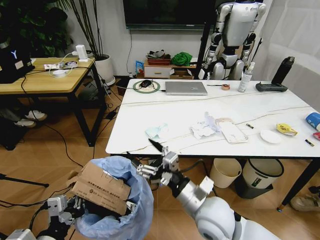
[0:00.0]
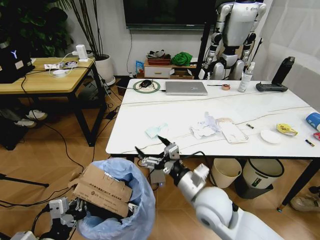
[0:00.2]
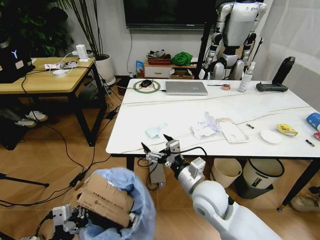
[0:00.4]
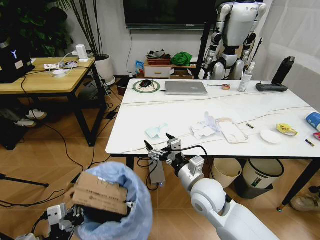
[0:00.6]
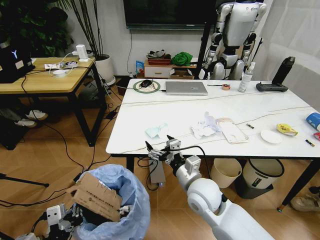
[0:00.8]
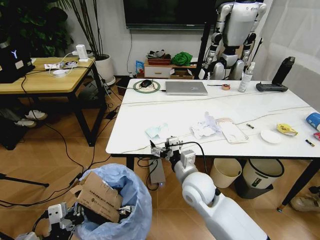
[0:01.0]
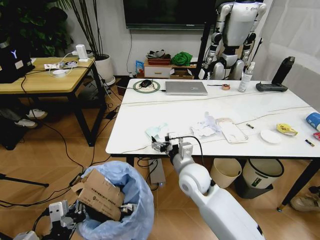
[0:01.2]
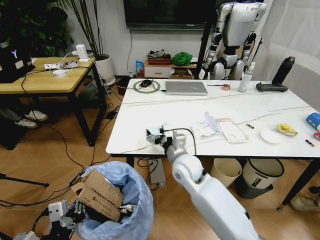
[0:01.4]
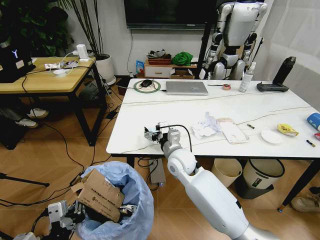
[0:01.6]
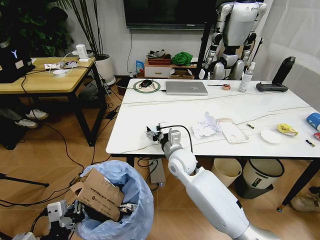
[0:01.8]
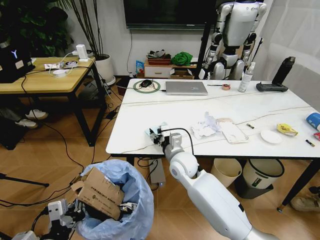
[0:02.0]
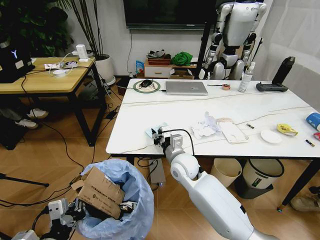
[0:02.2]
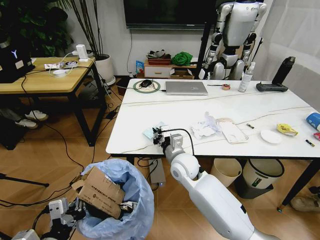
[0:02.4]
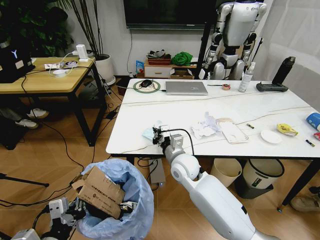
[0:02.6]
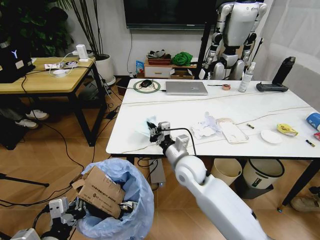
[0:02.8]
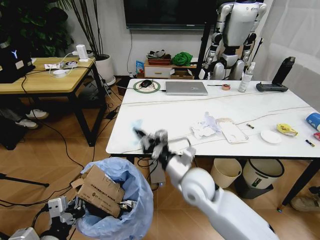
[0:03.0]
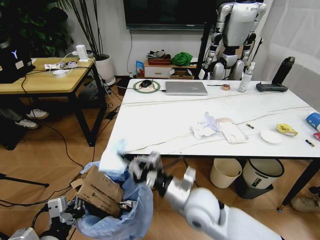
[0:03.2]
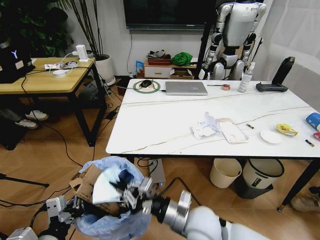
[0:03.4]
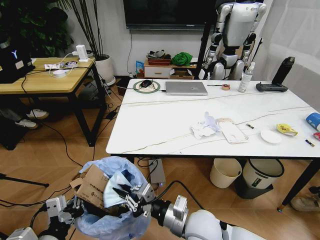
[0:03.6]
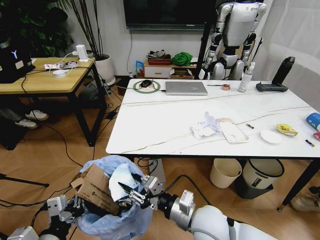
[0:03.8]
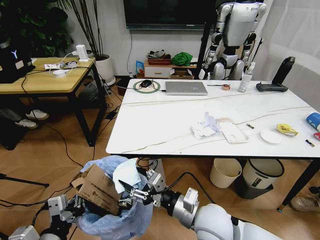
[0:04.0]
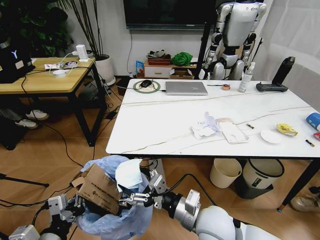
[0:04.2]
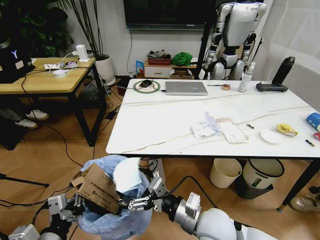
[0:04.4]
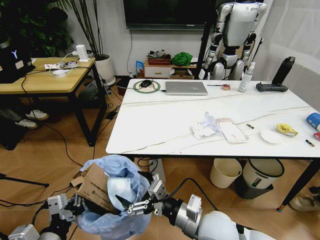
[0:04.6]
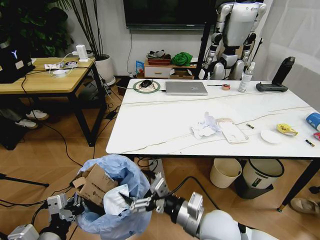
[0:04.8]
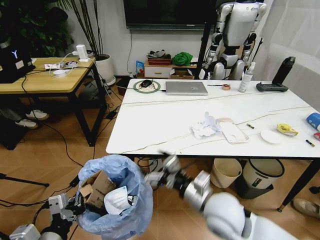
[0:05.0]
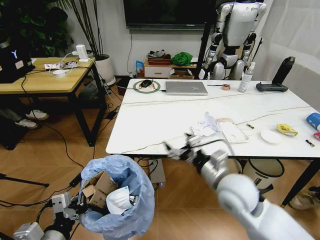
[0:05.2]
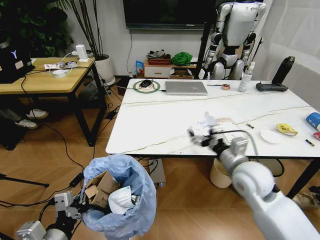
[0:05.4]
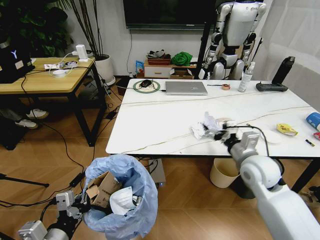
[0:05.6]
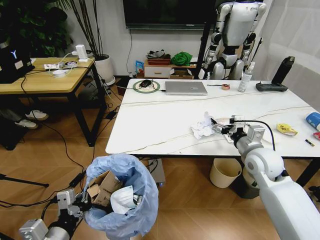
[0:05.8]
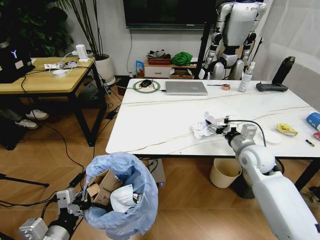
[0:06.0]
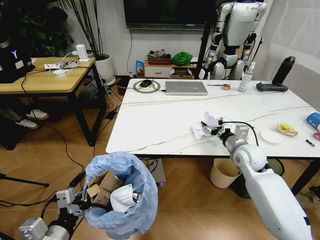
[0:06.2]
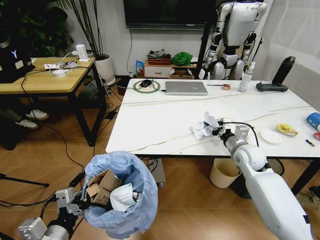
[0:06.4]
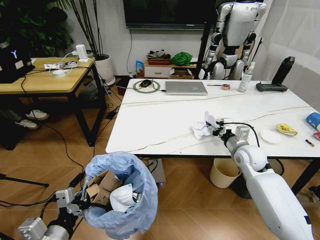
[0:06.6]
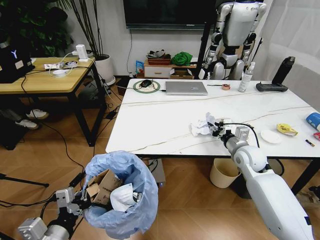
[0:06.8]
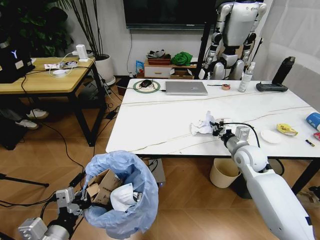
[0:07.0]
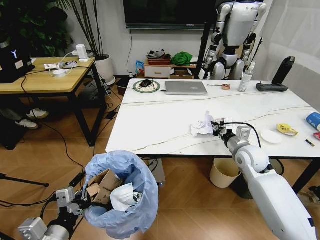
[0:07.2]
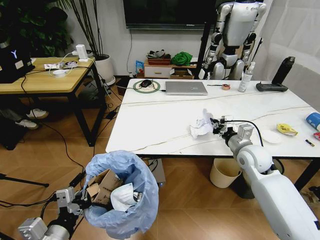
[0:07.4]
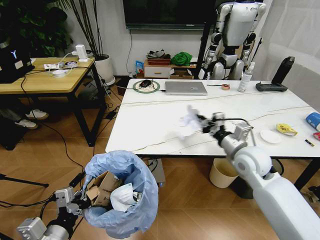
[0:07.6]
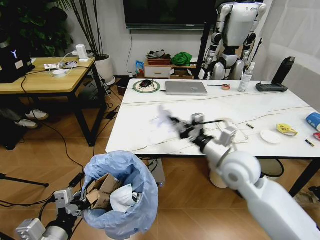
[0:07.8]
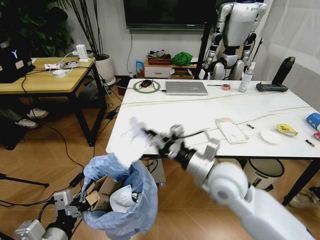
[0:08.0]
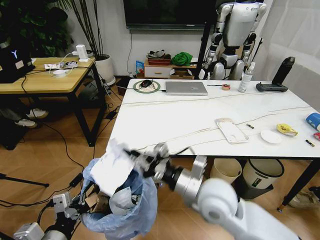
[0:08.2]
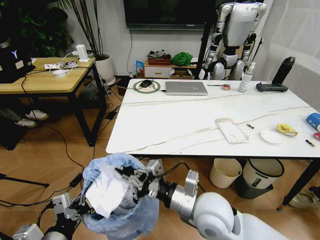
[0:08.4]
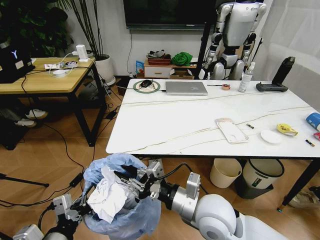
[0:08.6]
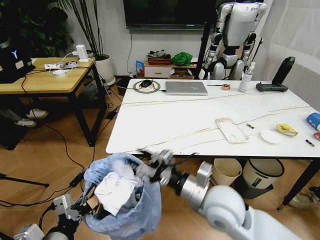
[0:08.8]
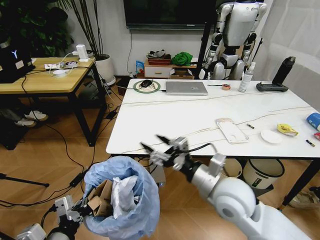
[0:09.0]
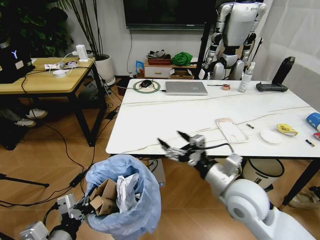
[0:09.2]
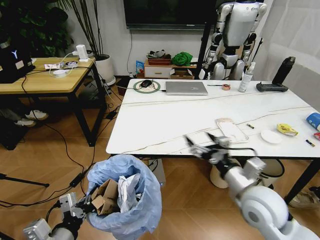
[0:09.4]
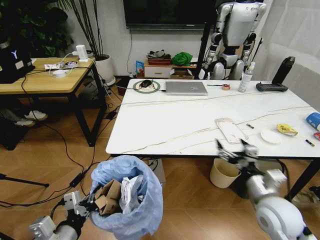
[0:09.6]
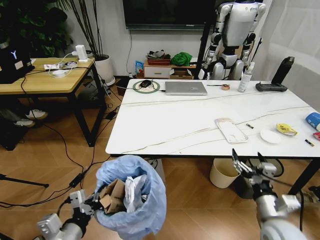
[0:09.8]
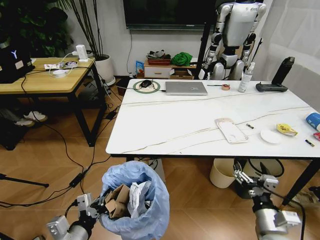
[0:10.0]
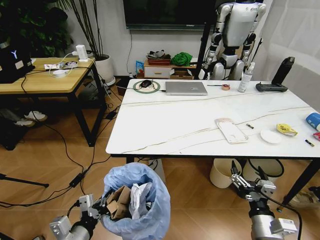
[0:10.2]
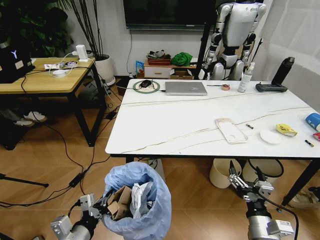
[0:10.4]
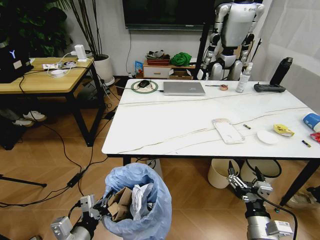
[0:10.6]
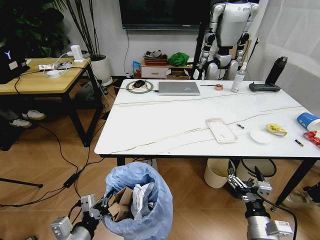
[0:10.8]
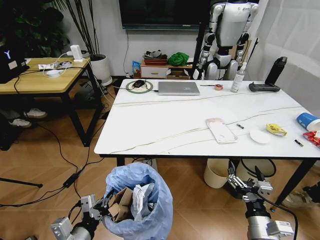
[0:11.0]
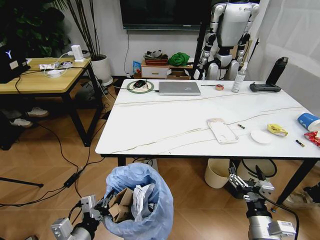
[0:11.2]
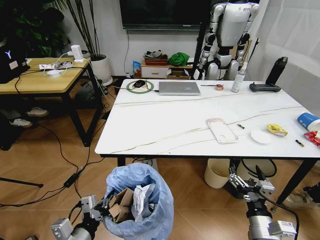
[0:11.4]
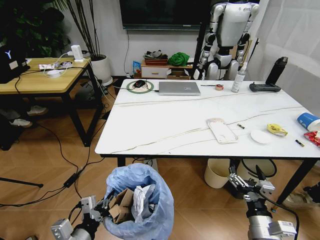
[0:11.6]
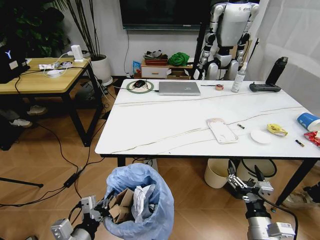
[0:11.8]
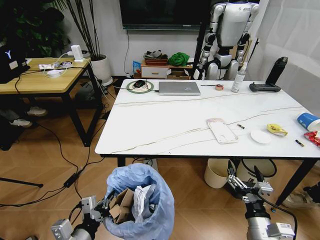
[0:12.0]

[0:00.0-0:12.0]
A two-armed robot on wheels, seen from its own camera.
Task of the whole recording: Pick up the trash bin and place the trash from the table into it.
0:00.0 to 0:01.6: The right gripper is displaced forward by approximately 20 cm.
0:01.6 to 0:03.0: The right gripper is displaced backward by approximately 10 cm, and closes its fingers.
0:03.0 to 0:04.4: The right gripper shifts approximately 10 cm backward, and opens.
0:04.4 to 0:06.0: The right gripper is displaced forward and to the right by approximately 25 cm.
0:06.0 to 0:07.6: The right gripper closes.
0:07.6 to 0:09.0: The right gripper shifts about 15 cm backward and to the left, and opens its fingers.
0:09.0 to 0:10.4: The right gripper goes roughly 20 cm downward, to the right and backward; the left gripper moves downward, about 5 cm.

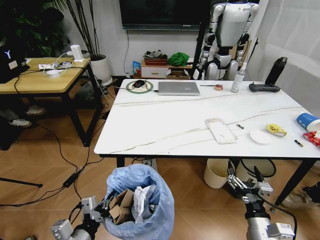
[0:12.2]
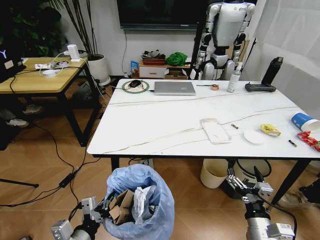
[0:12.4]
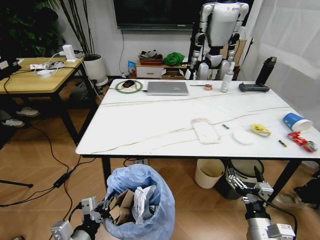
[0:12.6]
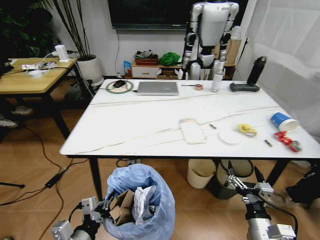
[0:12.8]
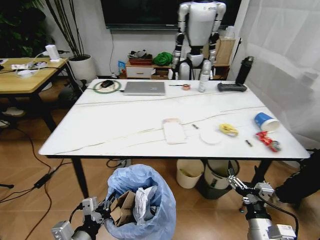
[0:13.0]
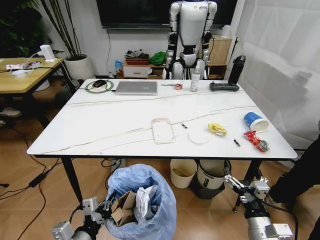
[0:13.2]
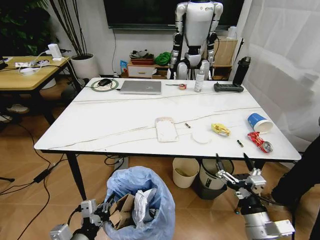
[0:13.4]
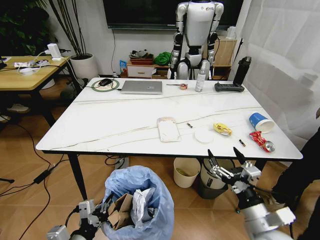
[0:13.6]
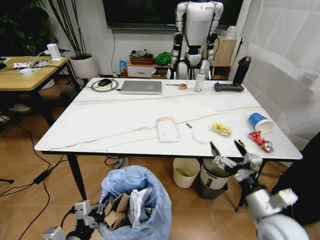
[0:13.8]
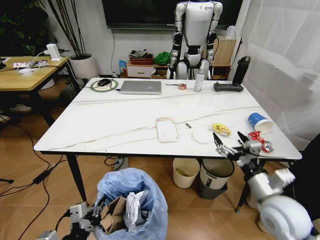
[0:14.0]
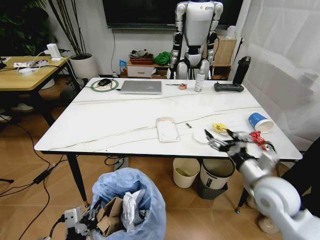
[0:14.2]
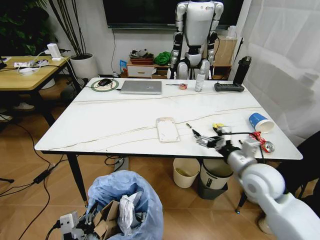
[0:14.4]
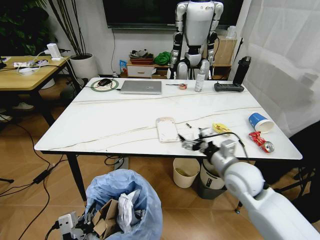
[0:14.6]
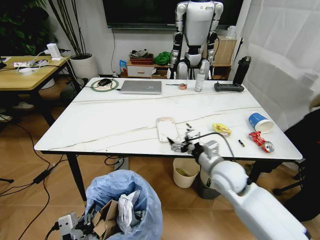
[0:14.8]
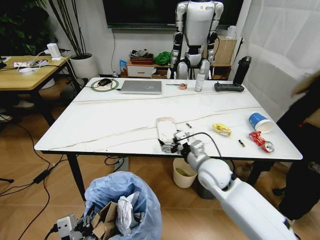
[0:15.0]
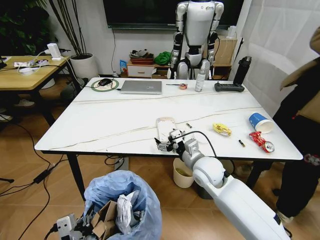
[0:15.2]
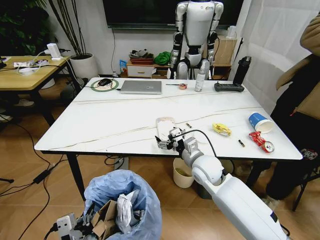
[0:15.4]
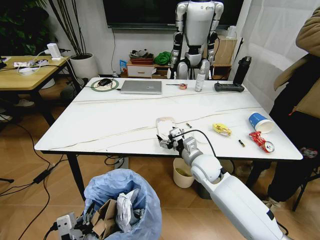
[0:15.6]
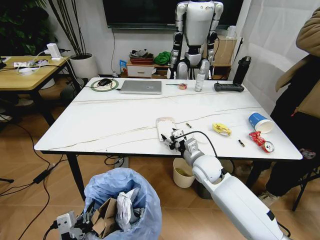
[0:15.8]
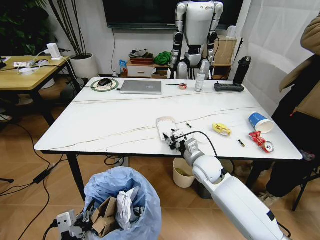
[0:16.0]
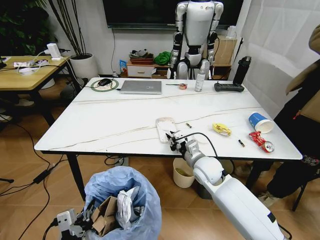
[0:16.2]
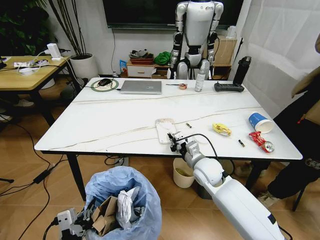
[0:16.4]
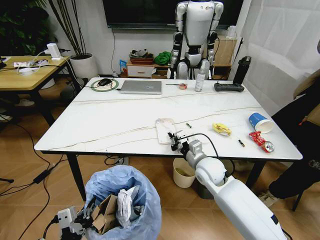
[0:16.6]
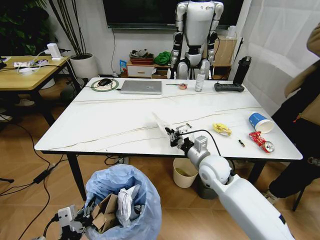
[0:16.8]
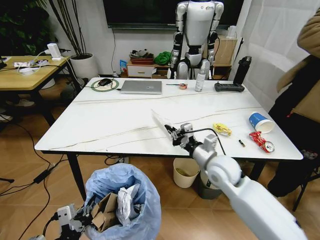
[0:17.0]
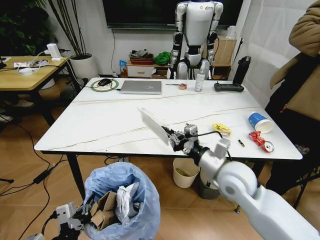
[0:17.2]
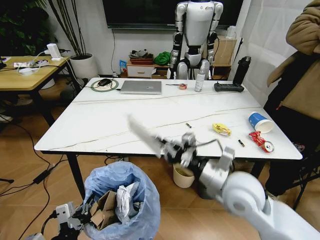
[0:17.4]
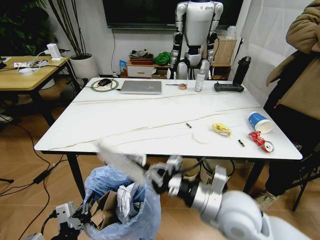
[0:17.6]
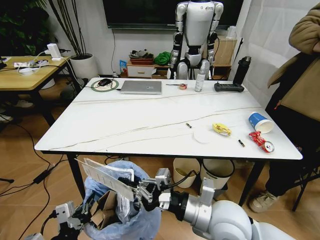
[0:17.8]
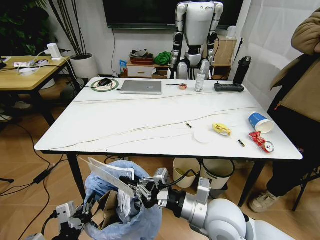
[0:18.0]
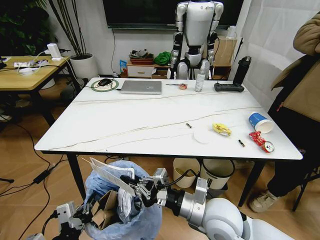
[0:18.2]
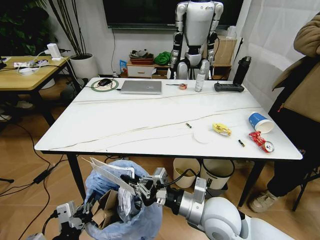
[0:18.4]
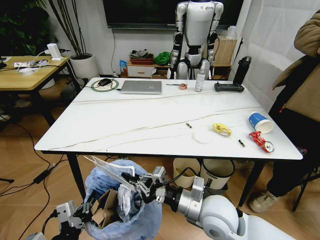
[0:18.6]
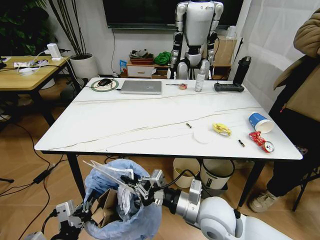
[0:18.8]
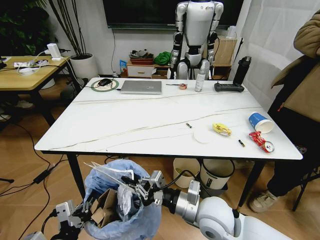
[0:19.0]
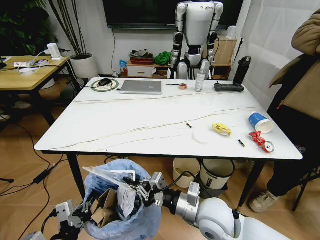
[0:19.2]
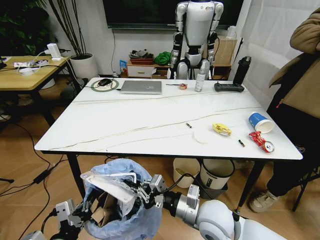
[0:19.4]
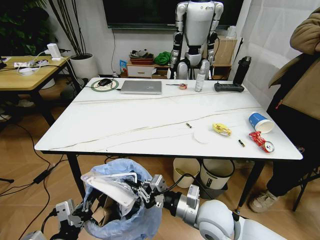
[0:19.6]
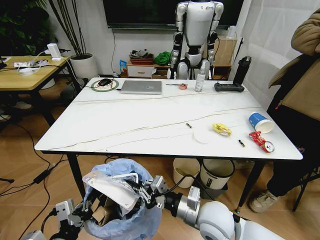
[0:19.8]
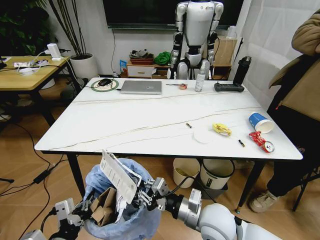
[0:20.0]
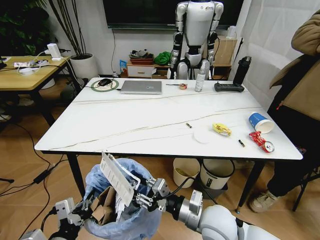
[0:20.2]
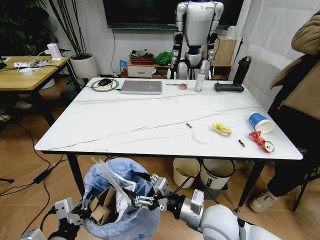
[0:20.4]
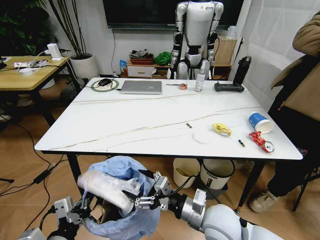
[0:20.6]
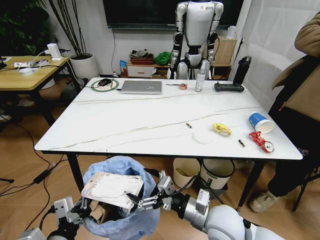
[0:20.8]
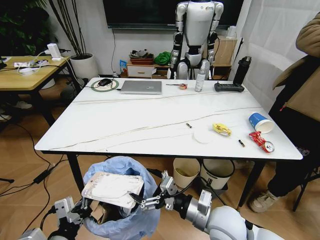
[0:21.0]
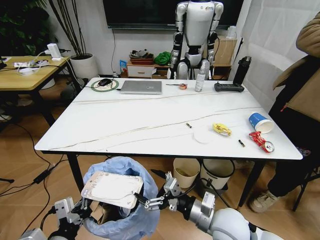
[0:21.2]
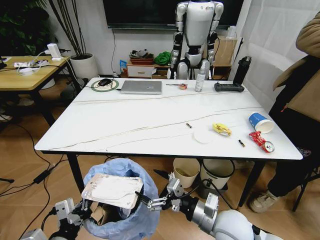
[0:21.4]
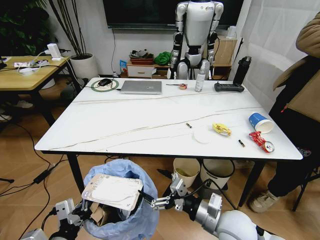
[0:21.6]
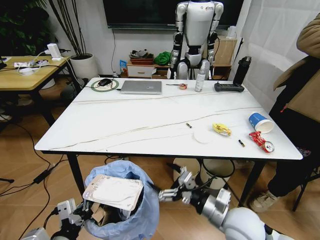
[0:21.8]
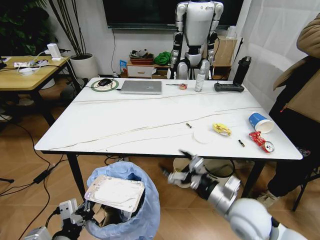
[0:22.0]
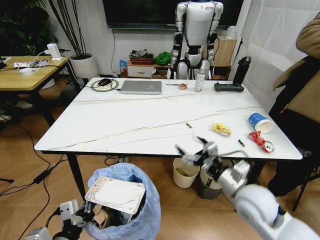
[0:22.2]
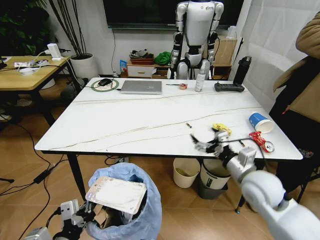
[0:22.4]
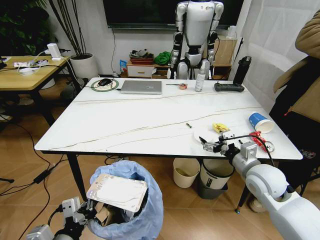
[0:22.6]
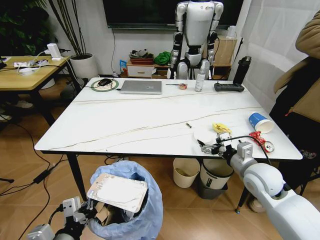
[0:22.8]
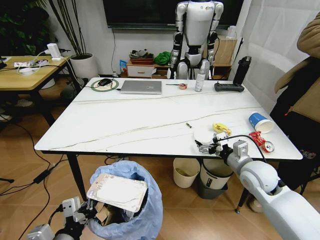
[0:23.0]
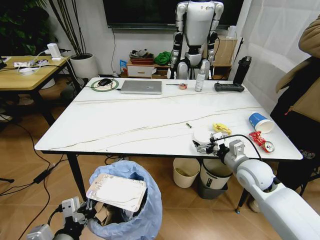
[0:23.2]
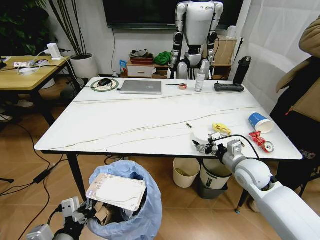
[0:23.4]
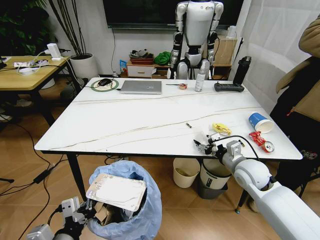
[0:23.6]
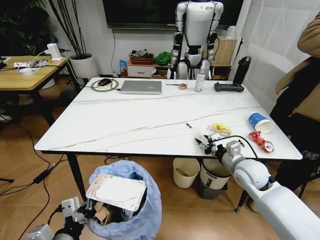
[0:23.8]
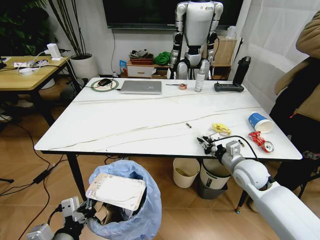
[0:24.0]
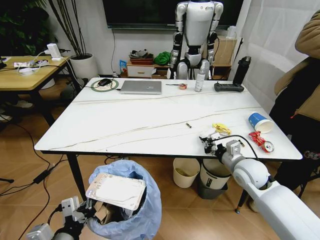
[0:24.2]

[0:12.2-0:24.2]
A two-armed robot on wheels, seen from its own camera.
Task of the whole recording: Pick up the trash bin and place the trash from the table into it.
0:12.2 to 0:13.8: The right gripper goes some 10 cm upward.
0:13.8 to 0:15.2: The right gripper moves forward and to the left, about 25 cm.
0:15.2 to 0:16.6: The right gripper closes up.
0:16.6 to 0:18.2: The right gripper is displaced backward by some 15 cm.
0:18.2 to 0:19.8: The grippers make only small movements.
0:19.8 to 0:21.2: The right gripper opens its fingers.
0:21.2 to 0:22.6: The right gripper heads to the right, forward and upward, covering roughly 15 cm.
0:22.6 to 0:24.2: The right gripper shifts by approximately 5 cm, and closes.
